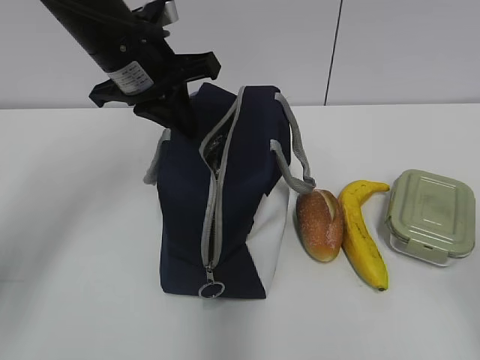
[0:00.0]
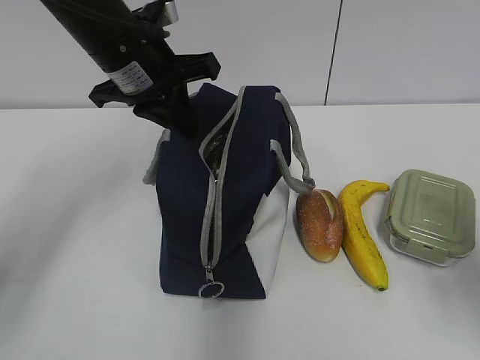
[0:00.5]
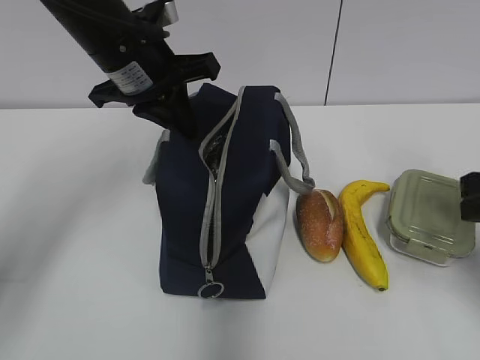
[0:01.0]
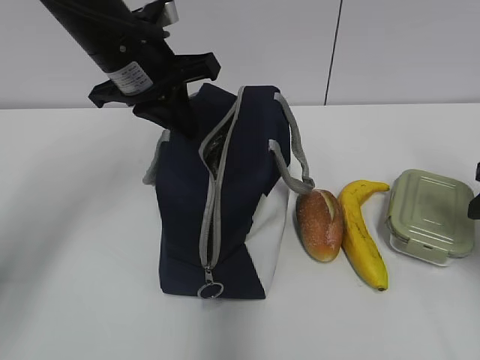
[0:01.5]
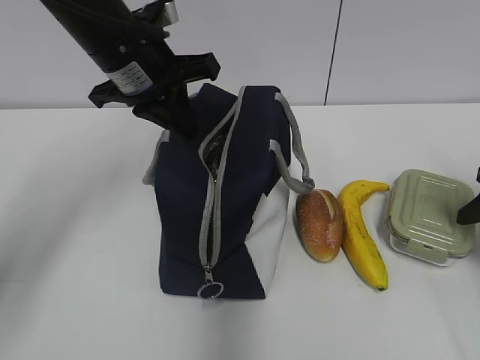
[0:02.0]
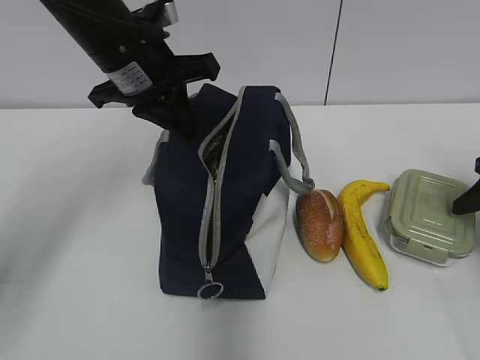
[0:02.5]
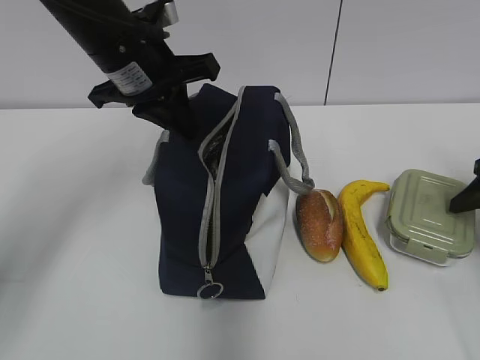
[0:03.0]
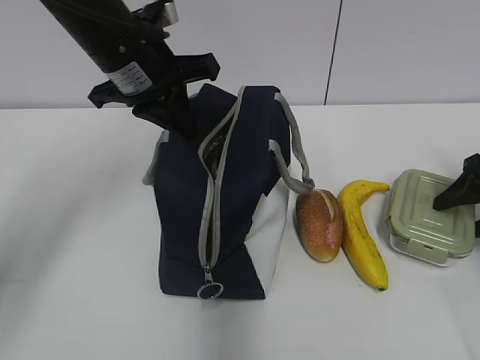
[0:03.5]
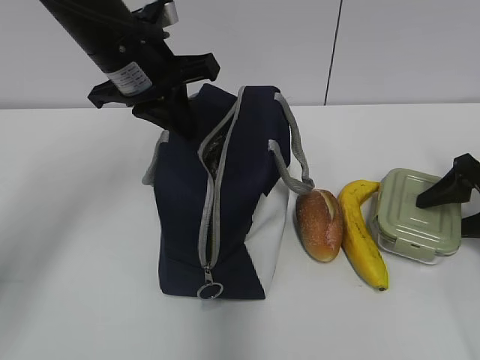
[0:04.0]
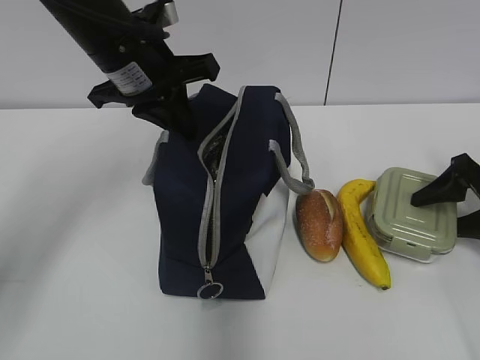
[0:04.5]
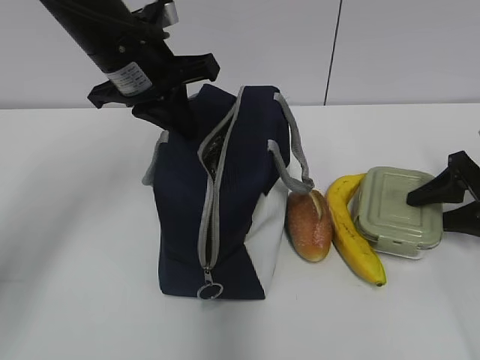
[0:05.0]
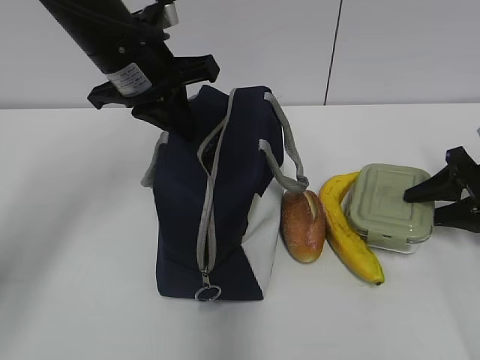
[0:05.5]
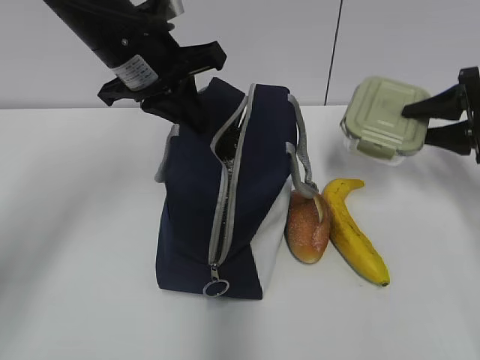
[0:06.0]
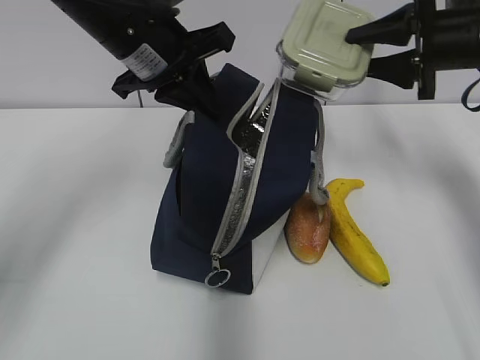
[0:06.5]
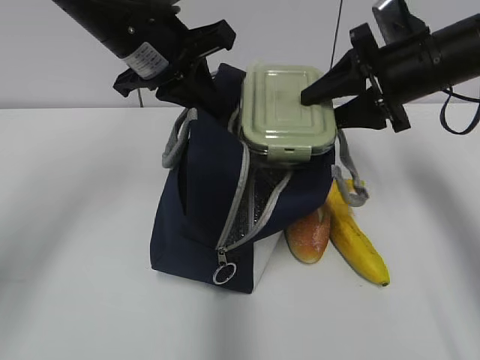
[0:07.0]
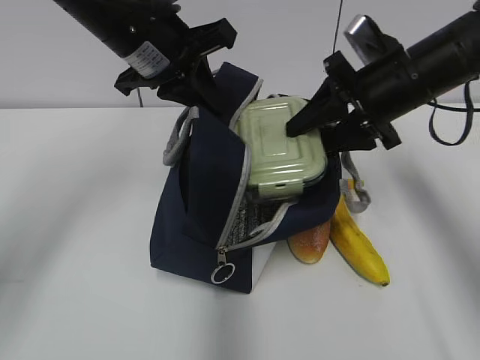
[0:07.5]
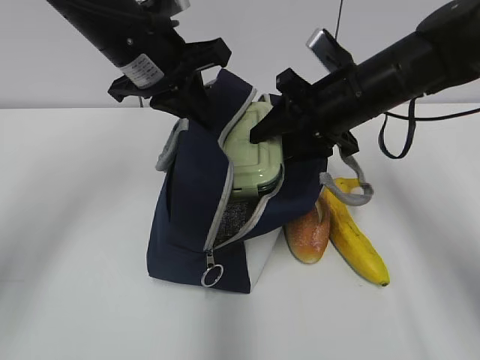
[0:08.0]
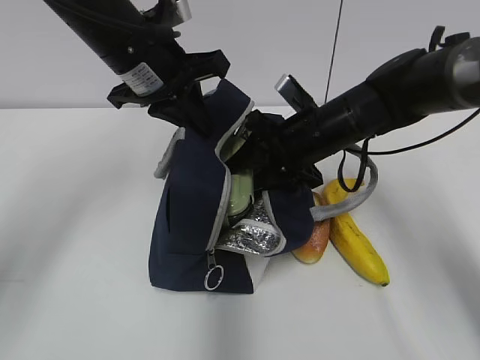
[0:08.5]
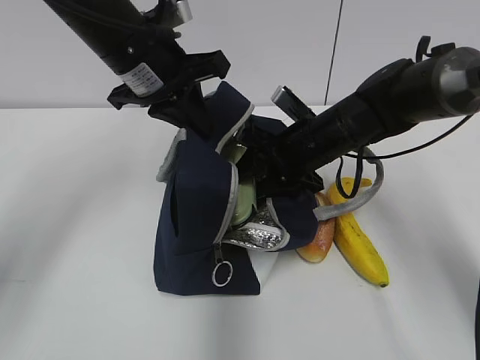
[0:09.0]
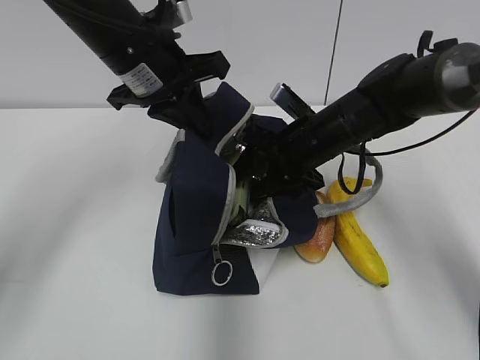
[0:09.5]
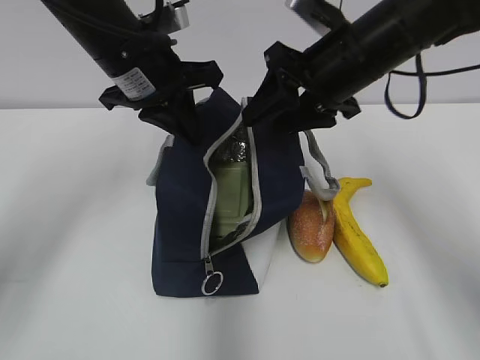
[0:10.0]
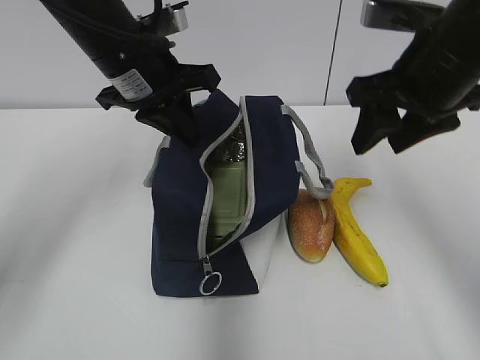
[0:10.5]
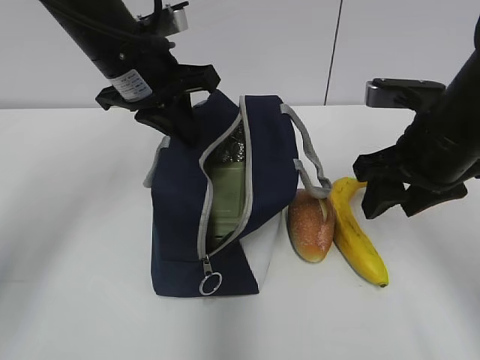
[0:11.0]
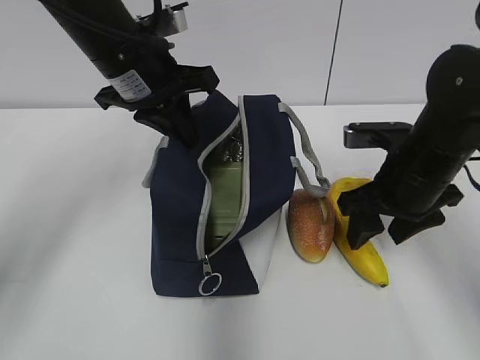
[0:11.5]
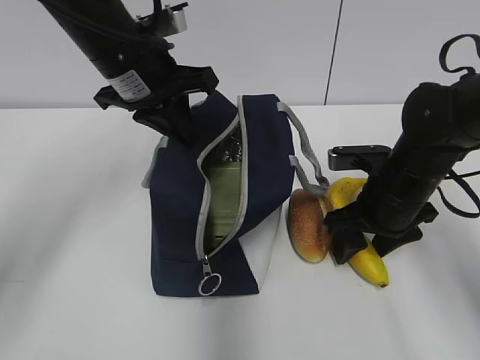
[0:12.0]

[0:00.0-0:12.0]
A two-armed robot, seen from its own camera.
Step, 0:00.0 to 0:05.0: Grab the lunch box with your right hand.
Step, 0:07.5 to 0:09.5: Place it into the bag with your right hand.
0:00.0 to 0:02.0: The right gripper travels forward and downward by roughly 25 cm.
0:02.0 to 0:04.0: The right gripper goes some 5 cm forward.
0:04.0 to 0:06.0: The right gripper goes some 10 cm forward and upward.
0:06.0 to 0:08.0: The right gripper heads to the left, covering about 20 cm.
0:10.0 to 0:12.0: The right gripper travels downward and to the right by approximately 15 cm.

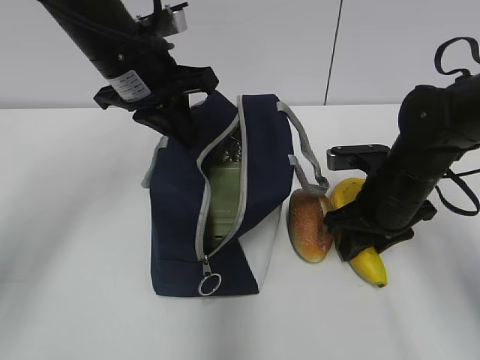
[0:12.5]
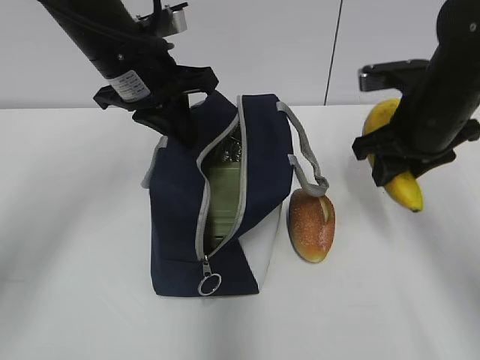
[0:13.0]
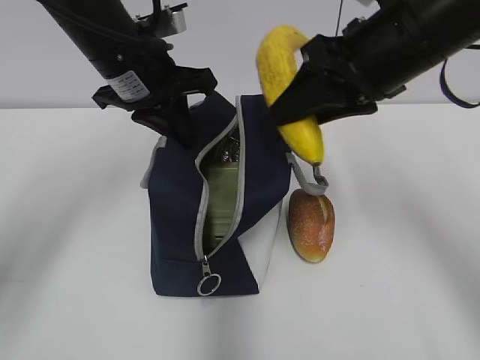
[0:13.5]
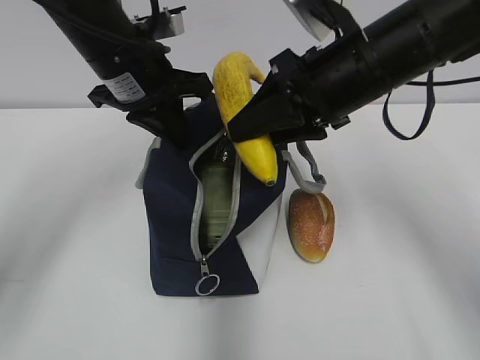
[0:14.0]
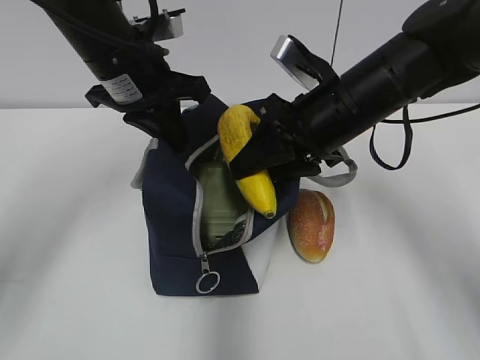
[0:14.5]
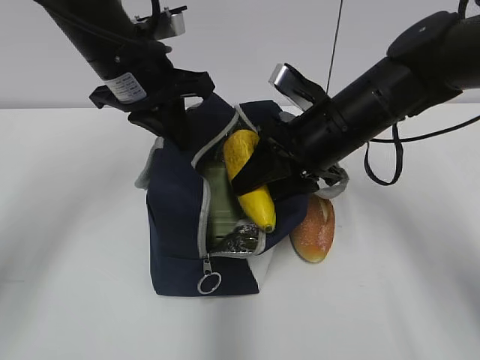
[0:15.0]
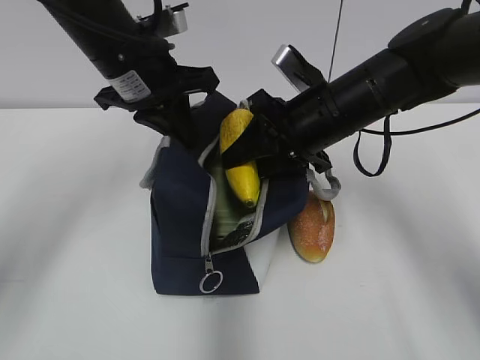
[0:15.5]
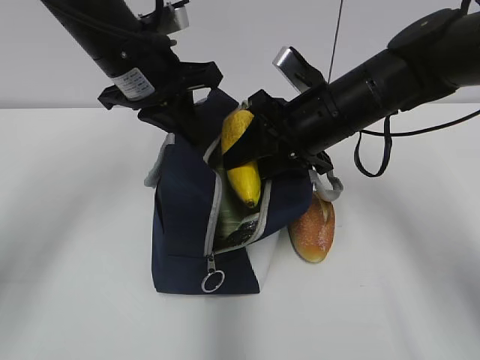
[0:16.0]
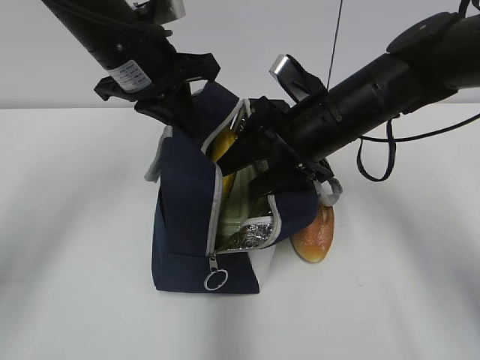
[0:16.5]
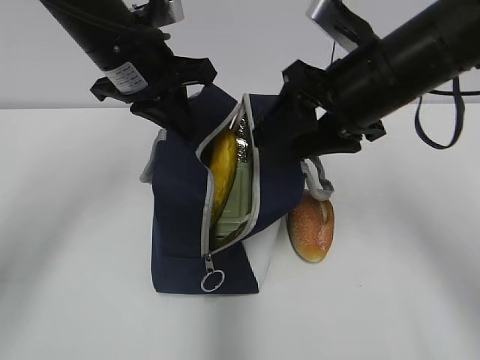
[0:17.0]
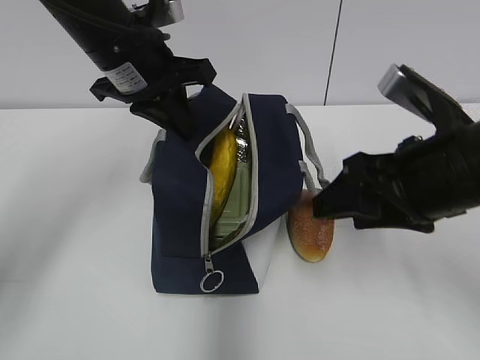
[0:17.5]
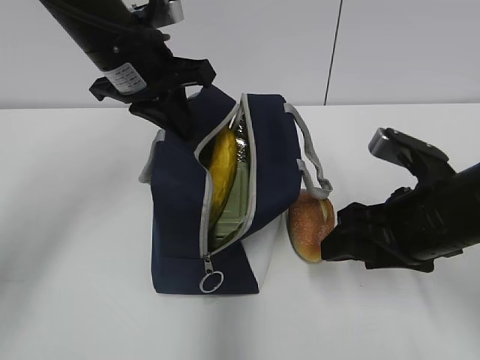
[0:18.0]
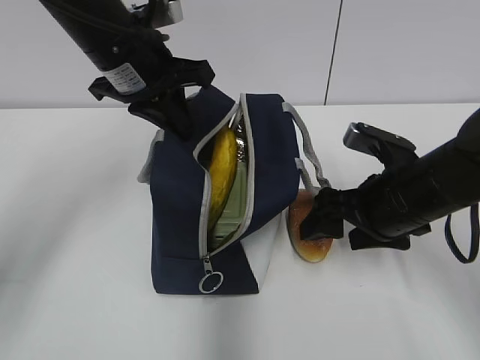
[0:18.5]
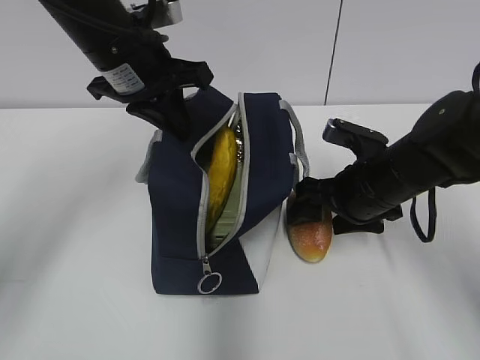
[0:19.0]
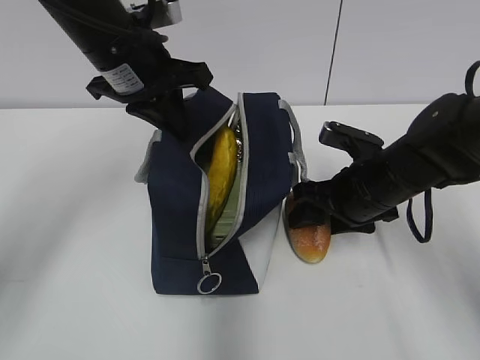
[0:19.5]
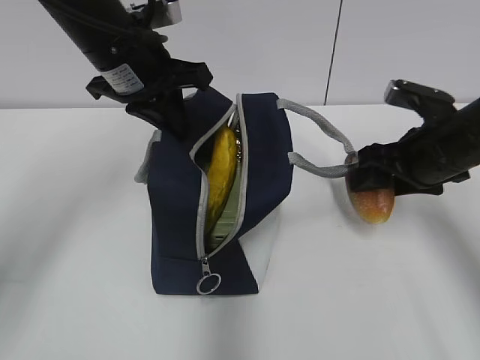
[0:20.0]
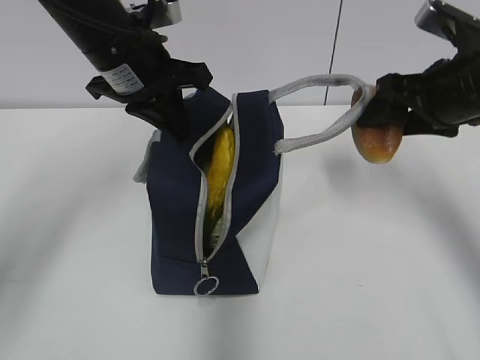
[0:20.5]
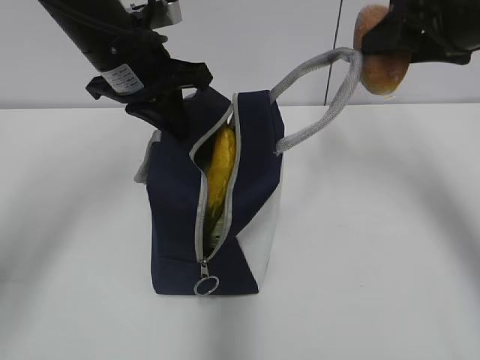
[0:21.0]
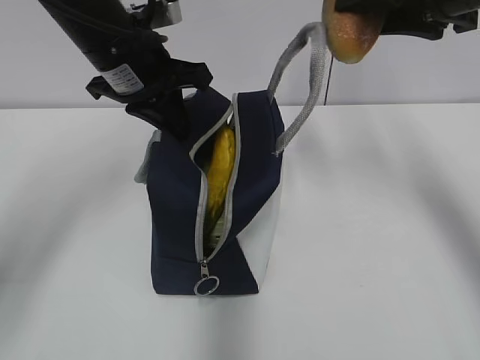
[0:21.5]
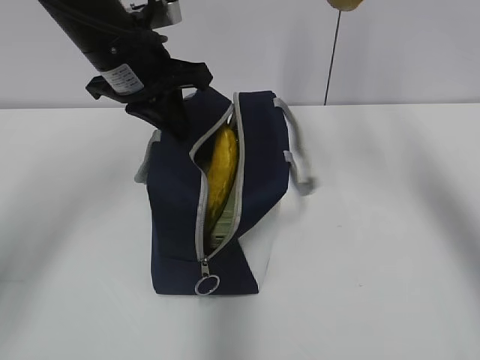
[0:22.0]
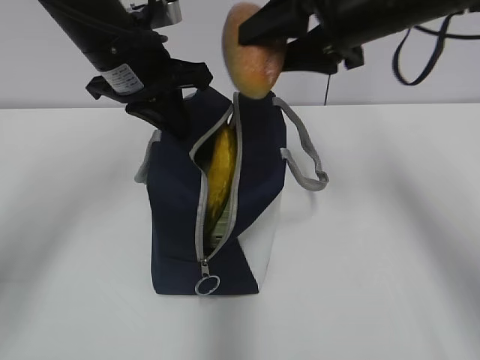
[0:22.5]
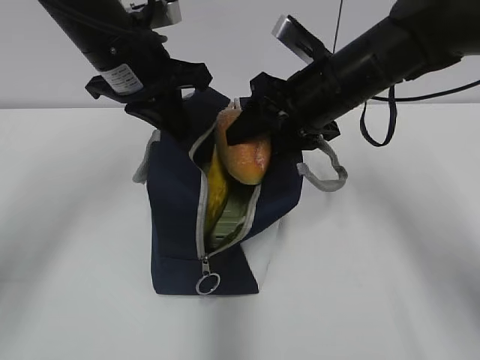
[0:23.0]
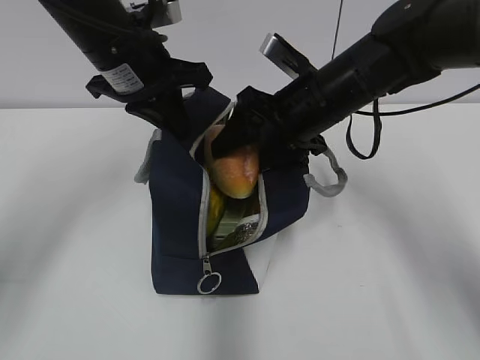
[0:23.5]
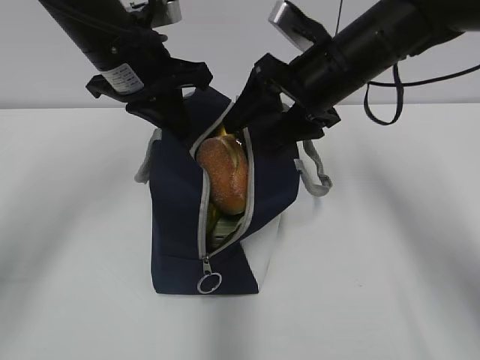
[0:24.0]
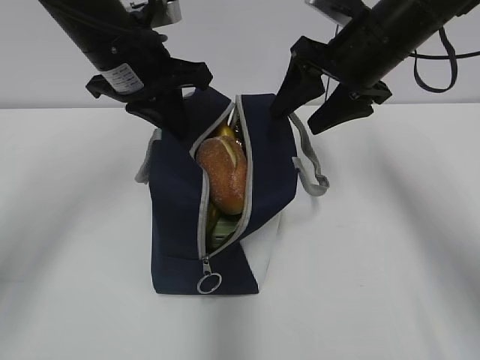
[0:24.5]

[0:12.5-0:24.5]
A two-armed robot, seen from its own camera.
Step, 0:12.5 to 0:16.5: Place it into the bag with your right hand.
Step, 0:17.0 to 0:19.5: Grab the bread with your right hand.
0:12.5 to 0:14.5: The right gripper goes some 15 cm upward and to the left.
0:14.5 to 0:16.5: The grippers stay close to where they were, moving slightly.
0:16.5 to 0:18.5: The right gripper shifts some 10 cm backward and to the right.
0:18.5 to 0:20.5: The right gripper goes about 10 cm upward and to the right.
0:20.5 to 0:22.5: The right gripper shifts some 10 cm to the left and upward.

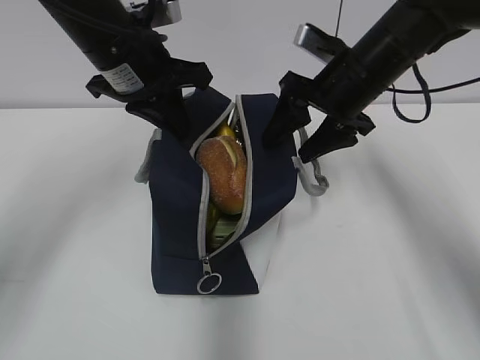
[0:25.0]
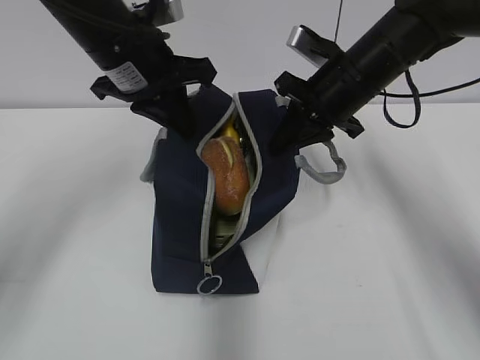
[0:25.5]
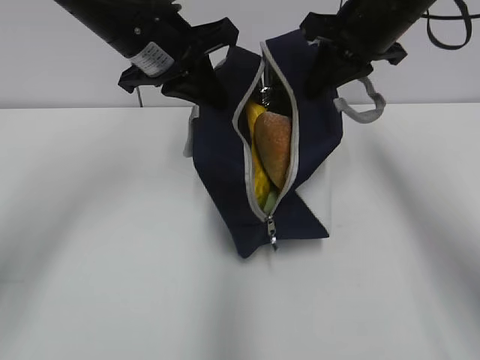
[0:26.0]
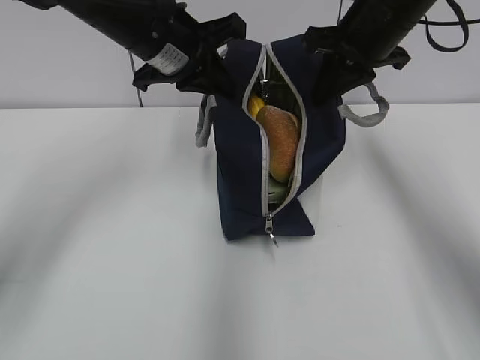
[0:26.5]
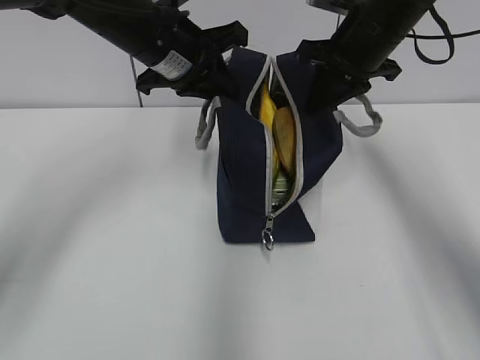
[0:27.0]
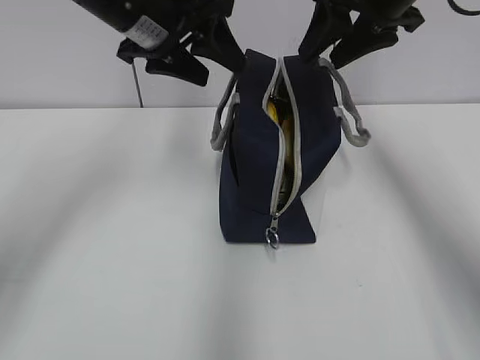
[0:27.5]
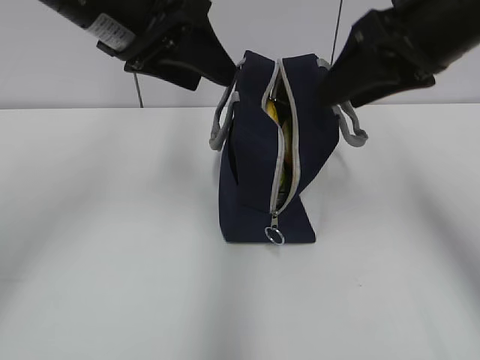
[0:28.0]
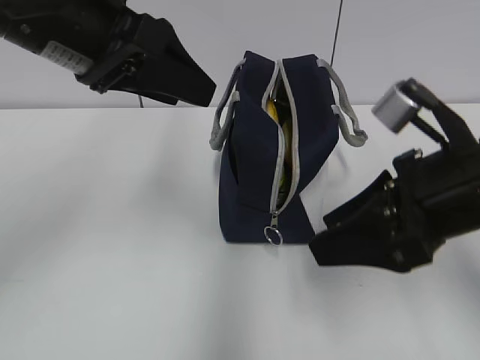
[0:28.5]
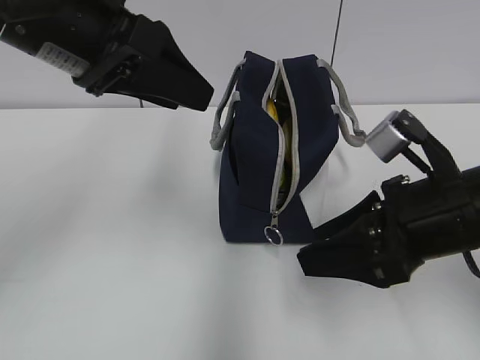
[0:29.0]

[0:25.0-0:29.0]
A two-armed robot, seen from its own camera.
Step, 0:26.0 to 0:27.0: Move the lunch bag to the right.
0:25.0 to 0:27.0: The right gripper ends up about 5 cm from where it was, and closes its fingers.
0:27.0 to 0:29.0: The right gripper is displaced backward by approximately 20 cm, and opens its fingers, while the left gripper moves backward and upward, approximately 15 cm, and opens up.
